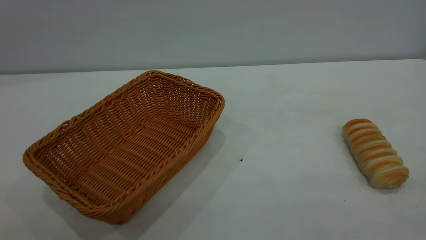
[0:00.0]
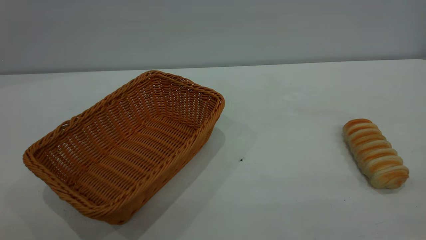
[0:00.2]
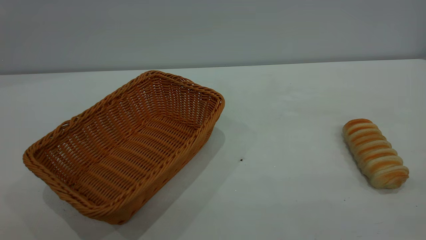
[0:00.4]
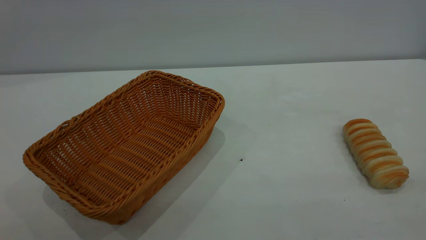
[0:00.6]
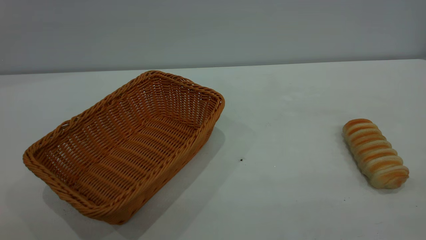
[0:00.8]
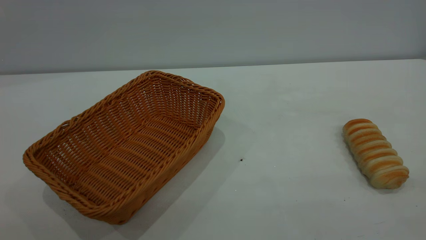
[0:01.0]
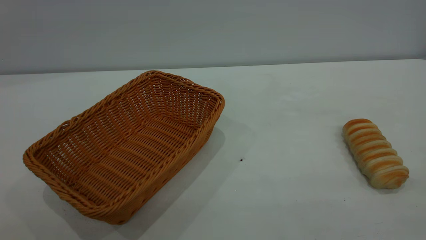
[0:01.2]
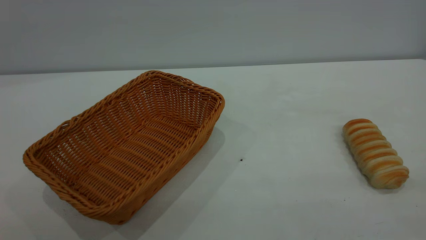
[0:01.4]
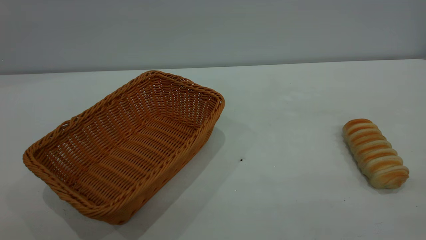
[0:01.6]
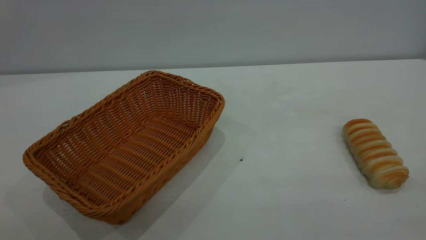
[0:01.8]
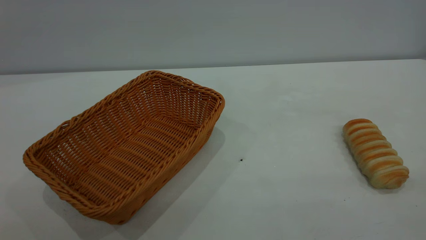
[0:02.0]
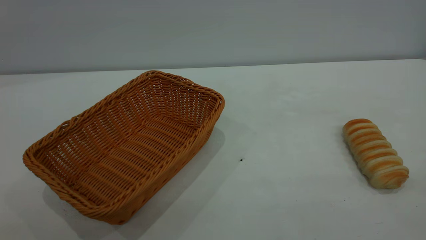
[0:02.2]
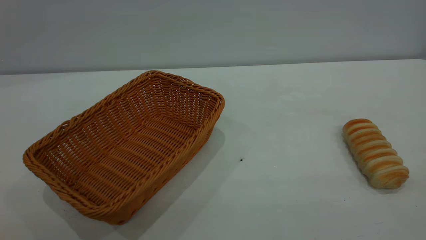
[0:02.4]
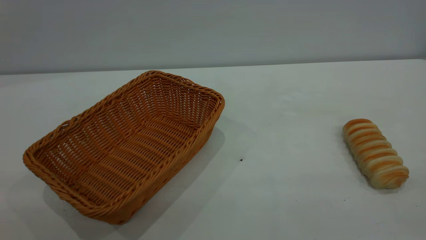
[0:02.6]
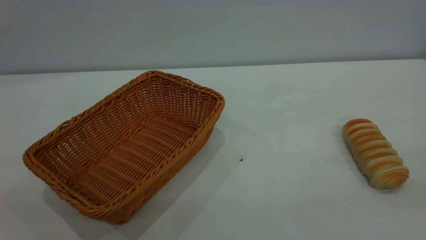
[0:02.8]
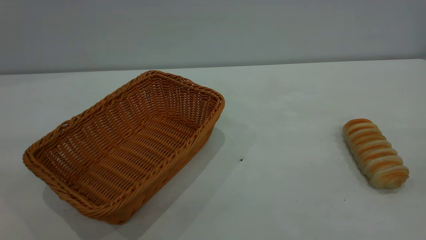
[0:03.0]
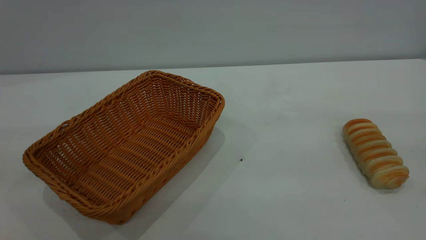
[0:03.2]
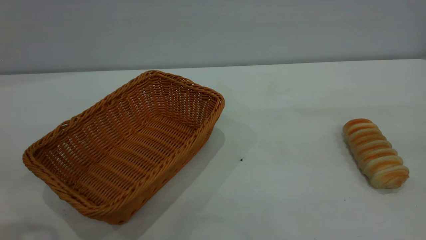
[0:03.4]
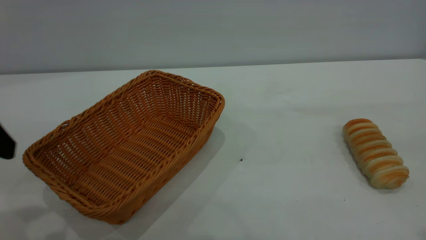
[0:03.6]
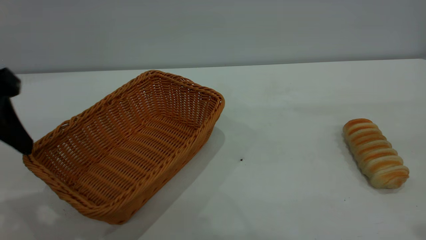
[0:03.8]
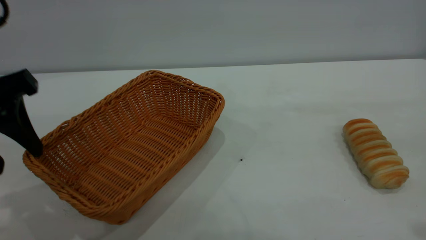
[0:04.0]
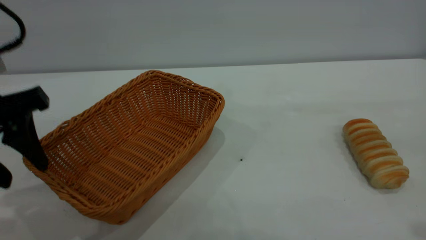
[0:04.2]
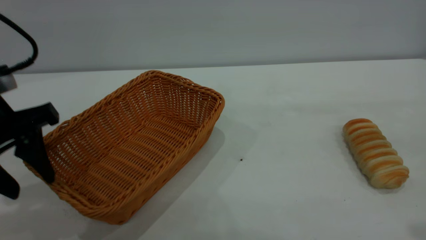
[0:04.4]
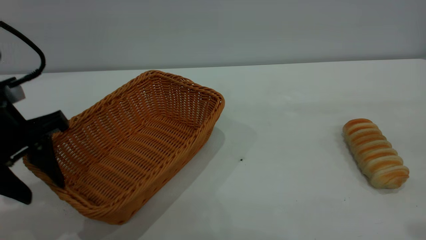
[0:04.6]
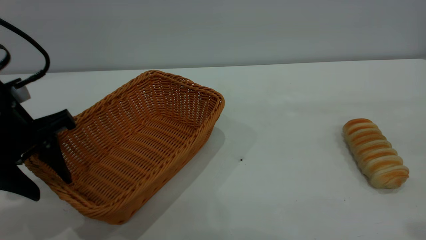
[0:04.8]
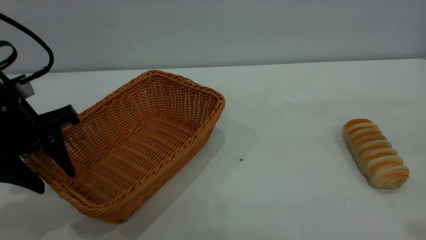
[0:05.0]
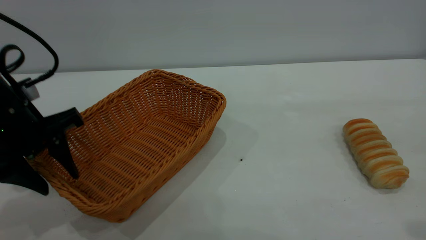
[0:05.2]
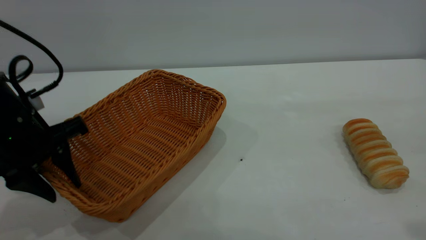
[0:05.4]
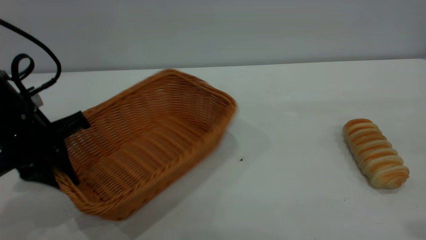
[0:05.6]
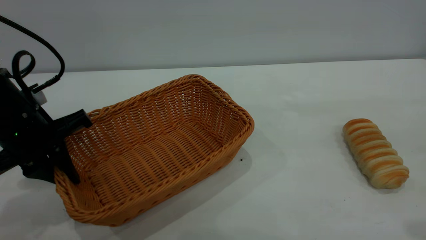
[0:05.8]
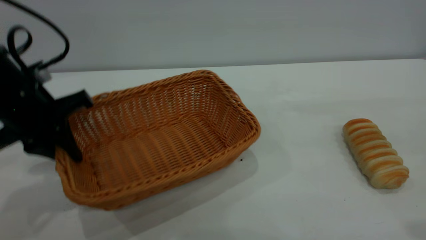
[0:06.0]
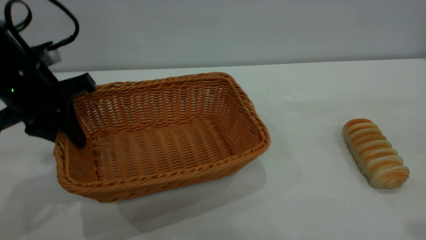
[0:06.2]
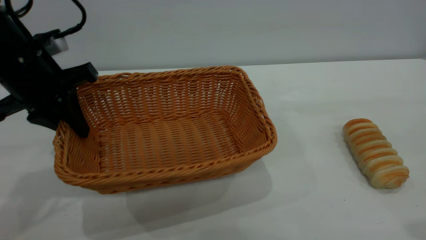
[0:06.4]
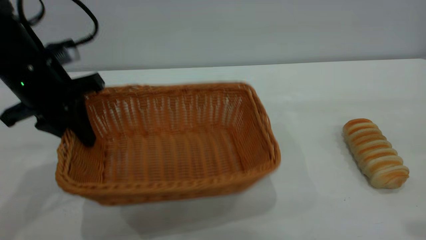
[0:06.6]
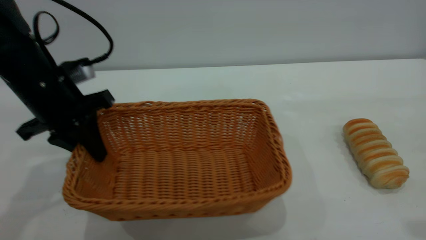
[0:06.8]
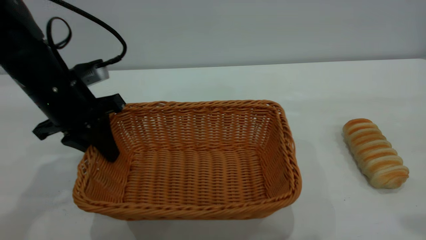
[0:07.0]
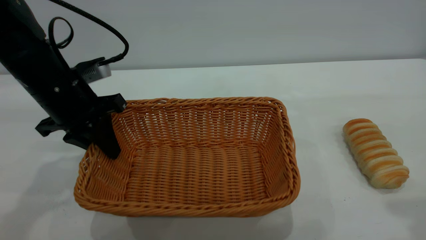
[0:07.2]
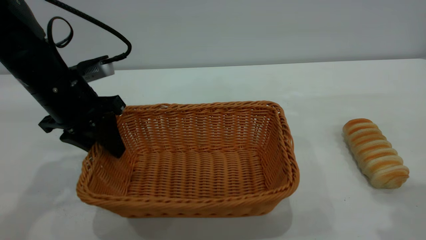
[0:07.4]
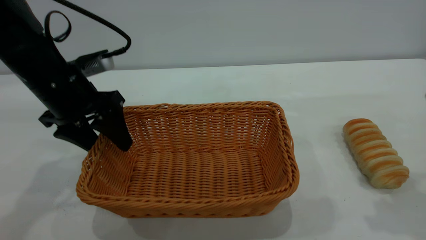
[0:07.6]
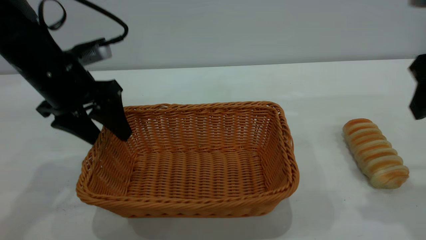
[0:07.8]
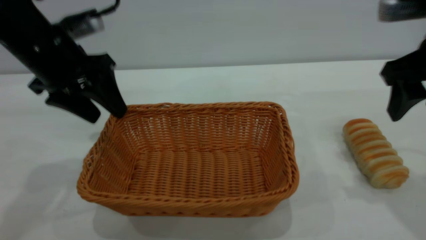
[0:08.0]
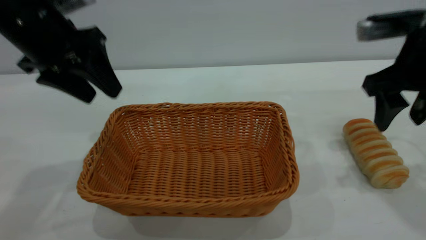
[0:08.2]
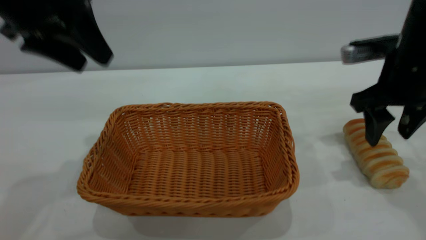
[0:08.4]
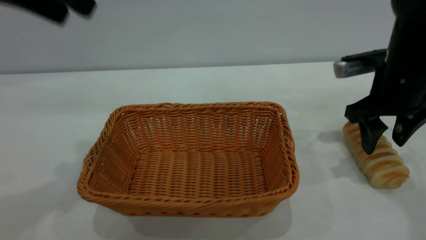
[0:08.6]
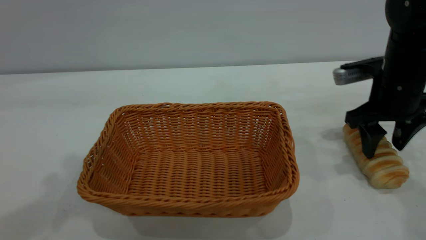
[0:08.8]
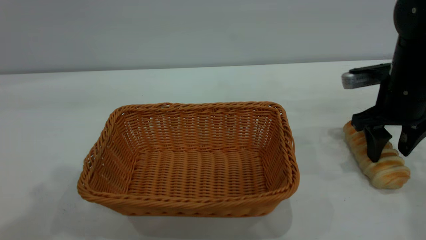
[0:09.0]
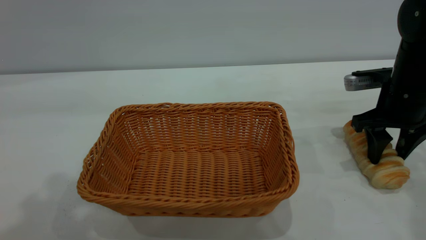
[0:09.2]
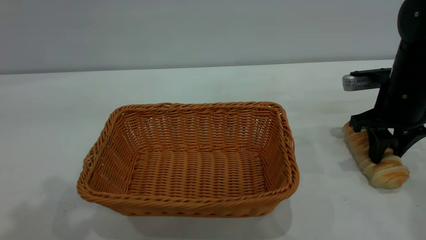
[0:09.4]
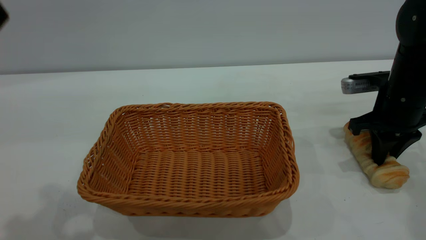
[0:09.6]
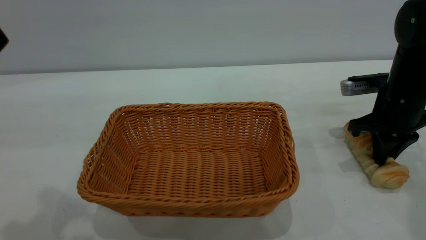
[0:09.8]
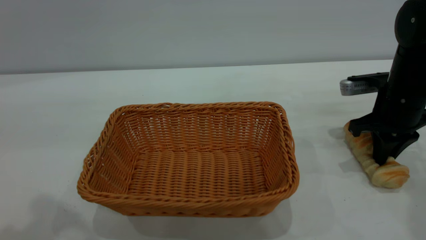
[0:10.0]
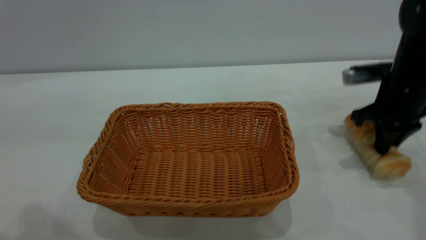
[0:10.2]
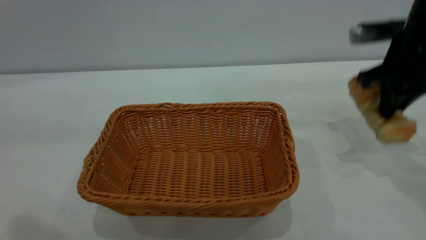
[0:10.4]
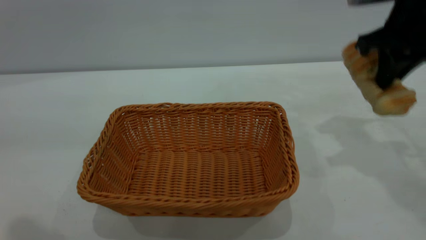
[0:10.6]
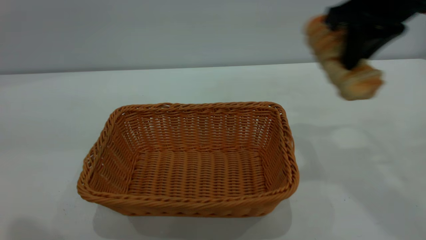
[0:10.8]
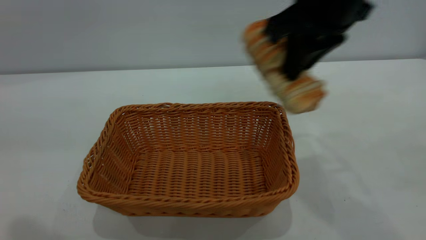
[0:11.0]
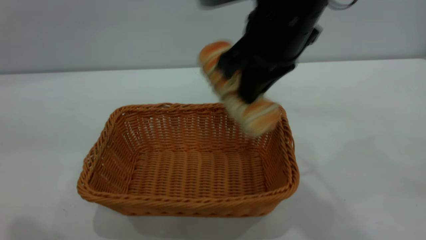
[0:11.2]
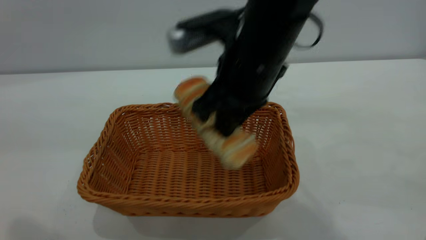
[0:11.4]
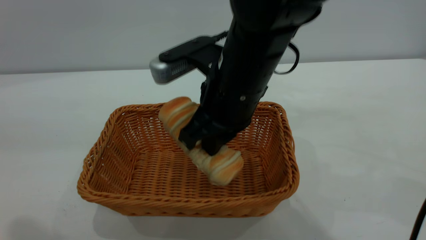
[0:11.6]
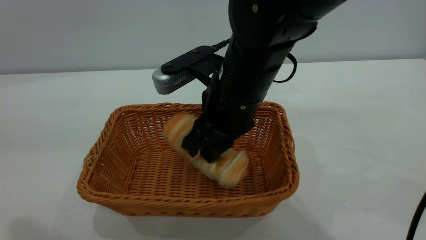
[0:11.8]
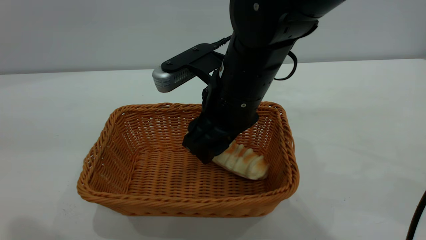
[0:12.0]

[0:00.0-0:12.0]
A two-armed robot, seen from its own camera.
Task of the whole recording: One hand grasps the yellow basket and places it in the middle of the table, while the other hand picks up the long bread and puts it into the yellow basket.
Step, 0:00.0 to 0:08.0: Move the basket to the center of view.
0:00.0 to 0:01.6: The two grippers keep their place.
0:03.0 to 0:04.4: The left gripper travels forward and downward by roughly 20 cm.
0:04.4 to 0:06.0: The left gripper moves forward, some 5 cm, and closes up.
0:06.0 to 0:07.6: The left gripper shifts by roughly 5 cm, and opens, while the right gripper moves forward and downward, approximately 10 cm, and opens up.
0:07.6 to 0:09.0: The right gripper moves downward and forward, about 20 cm. Meanwhile the left gripper travels upward and backward by about 30 cm.
0:09.0 to 0:10.4: The right gripper travels upward by roughly 5 cm, and closes up.
0:10.4 to 0:12.0: The right gripper moves to the left, roughly 25 cm, and opens.

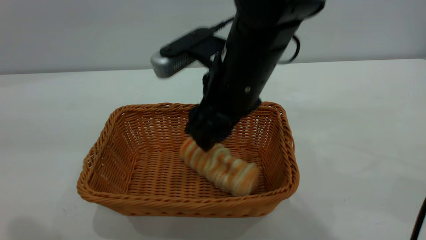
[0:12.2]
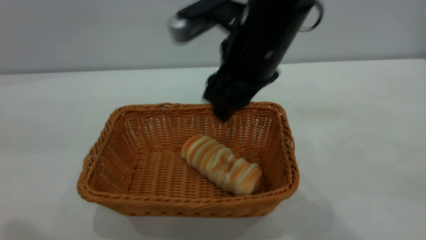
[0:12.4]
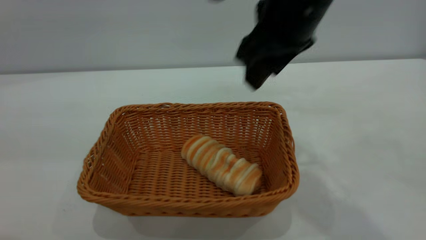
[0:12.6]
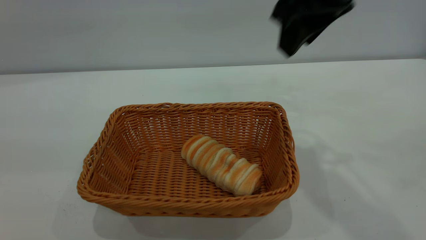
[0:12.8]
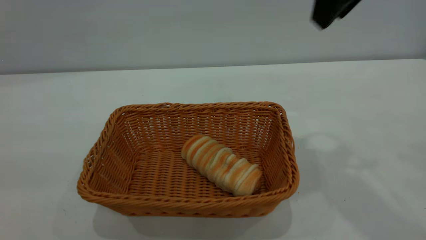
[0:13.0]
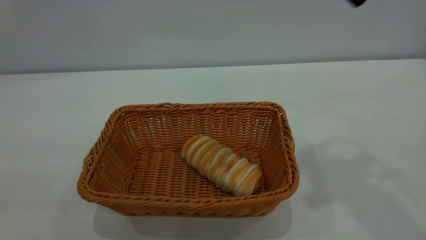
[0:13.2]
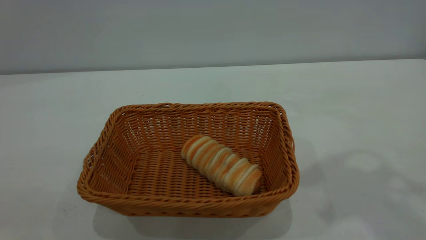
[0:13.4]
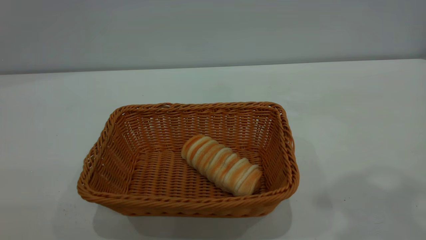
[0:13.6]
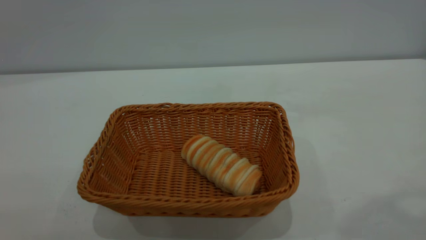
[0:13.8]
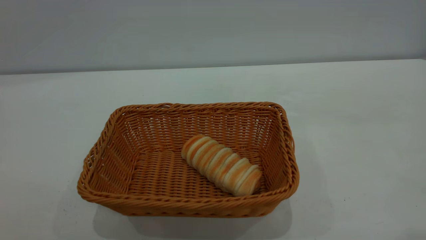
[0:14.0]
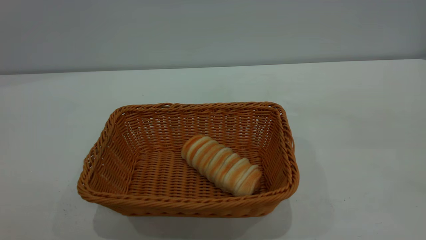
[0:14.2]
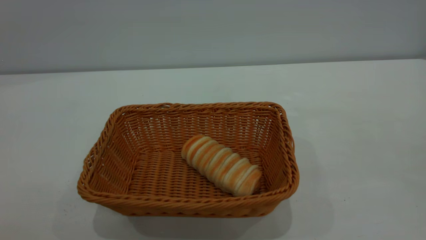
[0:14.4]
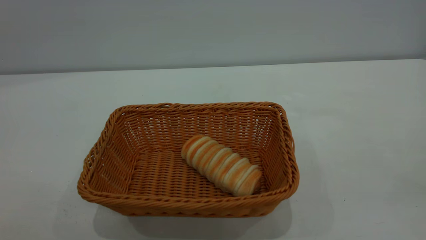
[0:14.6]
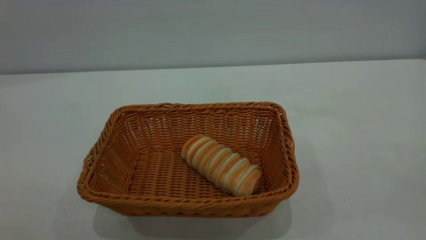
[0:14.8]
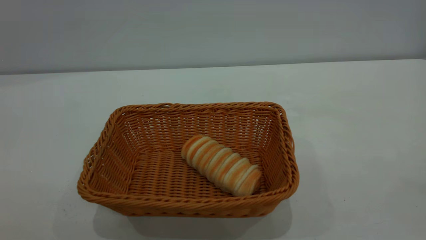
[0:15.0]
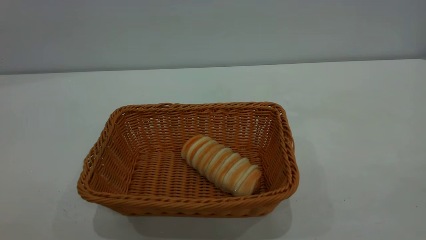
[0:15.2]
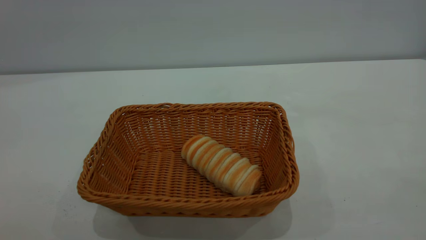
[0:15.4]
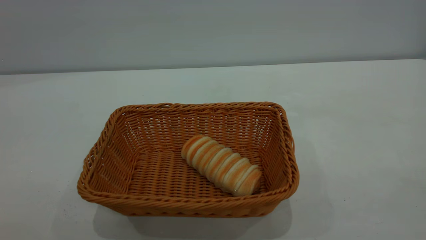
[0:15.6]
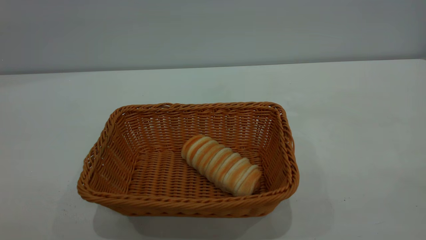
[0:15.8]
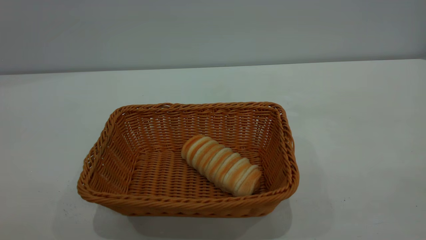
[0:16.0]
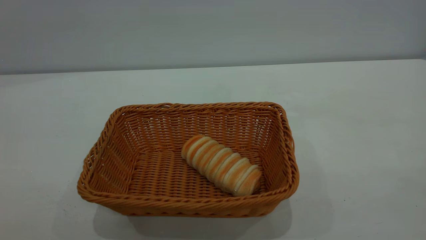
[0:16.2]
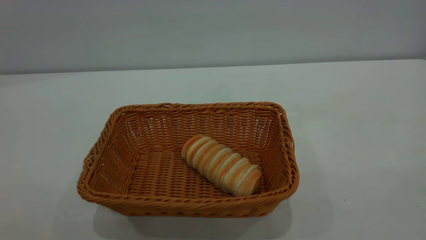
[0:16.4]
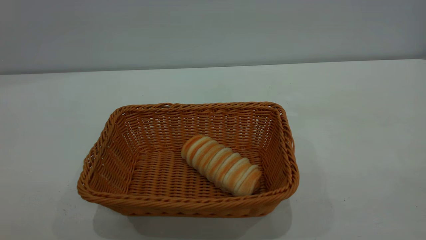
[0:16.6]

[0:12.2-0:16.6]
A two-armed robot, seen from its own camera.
Task of the whole recording: One hand grasps the yellow basket and places it in the middle of the table, while the other hand picks up the long bread and puts it into the yellow basket.
0:12.2 to 0:13.6: The right gripper moves upward and to the right, roughly 30 cm, and closes its fingers. Meanwhile the left gripper travels backward by some 15 cm.
